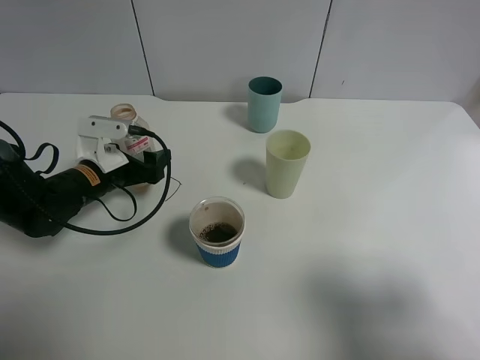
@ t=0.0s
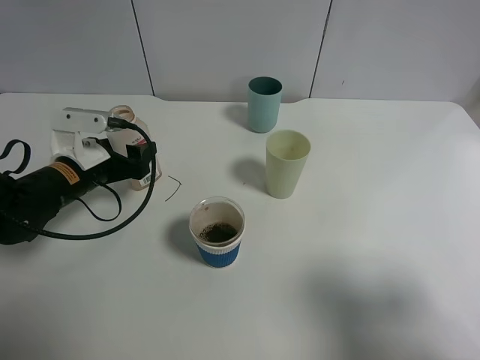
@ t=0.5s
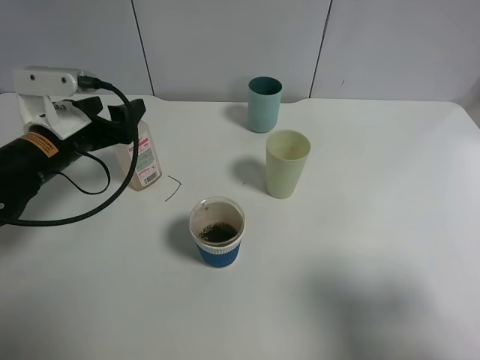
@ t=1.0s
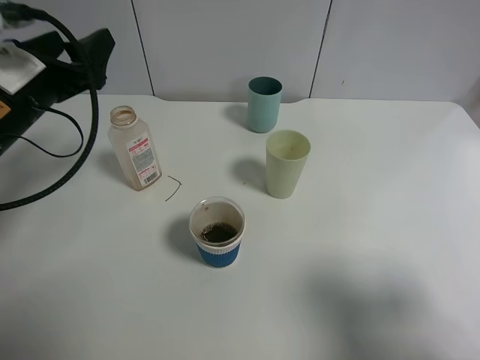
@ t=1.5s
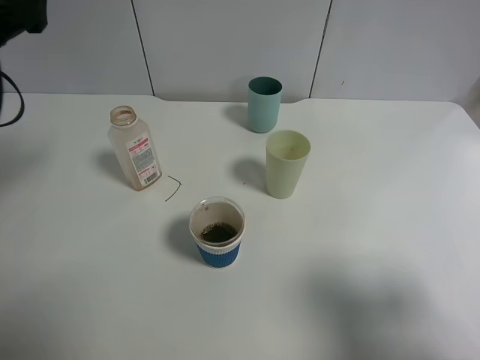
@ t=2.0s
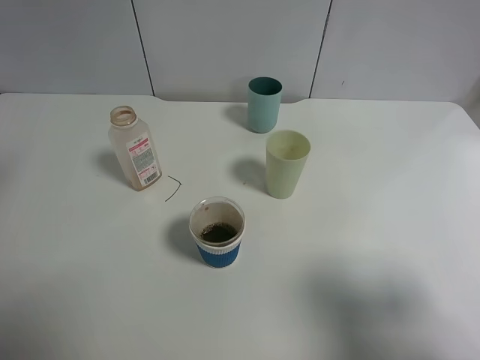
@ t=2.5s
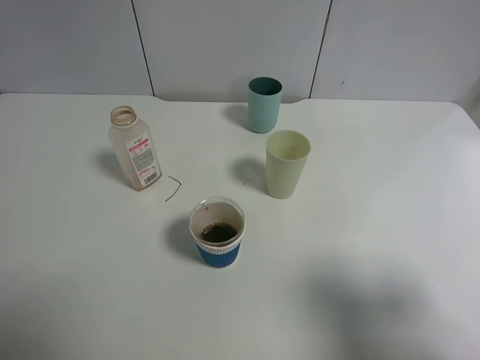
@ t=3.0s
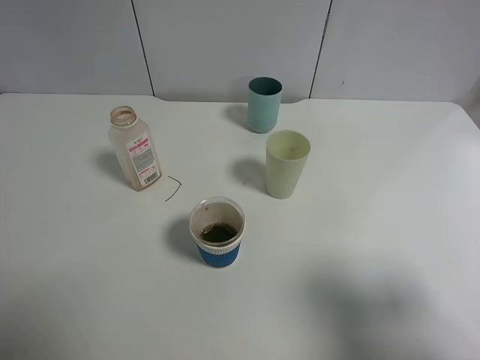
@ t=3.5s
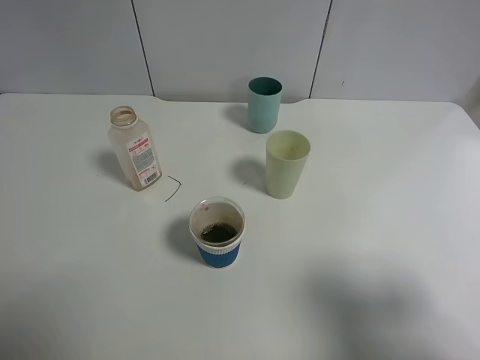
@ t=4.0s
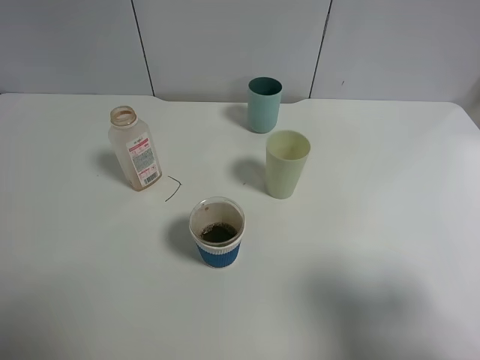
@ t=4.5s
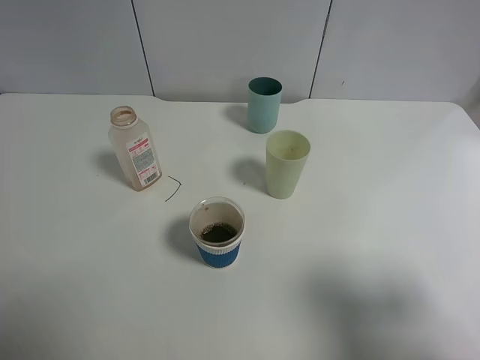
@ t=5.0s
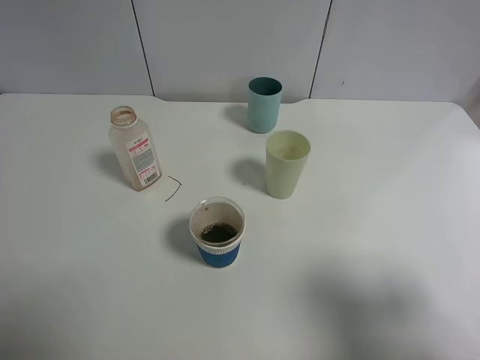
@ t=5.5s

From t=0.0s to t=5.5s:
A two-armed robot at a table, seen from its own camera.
Task of the whole recording: use a gripper to hold the bottle of the drink and pour it into a random cup.
From t=0.0s to t=2.0s: The left gripper travels upward by about 20 cm.
From t=2.0s to t=3.5s: The left gripper travels backward by roughly 15 cm.
